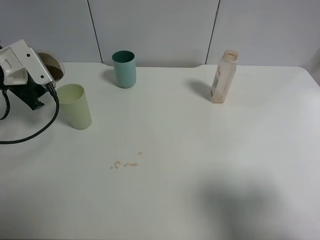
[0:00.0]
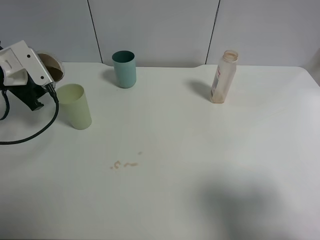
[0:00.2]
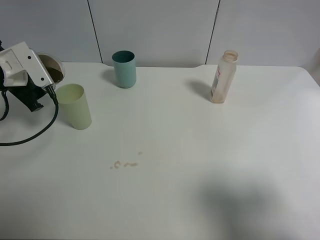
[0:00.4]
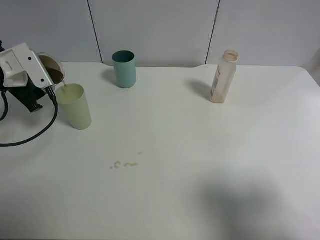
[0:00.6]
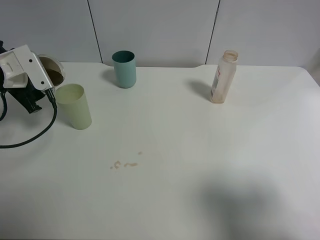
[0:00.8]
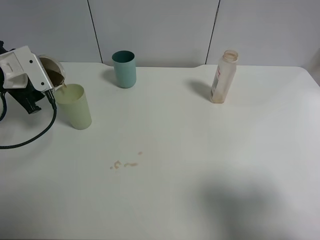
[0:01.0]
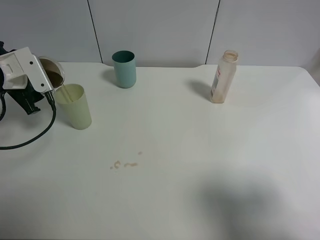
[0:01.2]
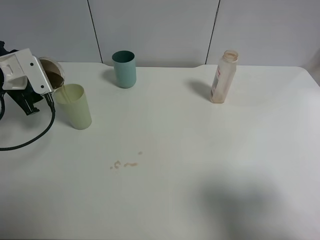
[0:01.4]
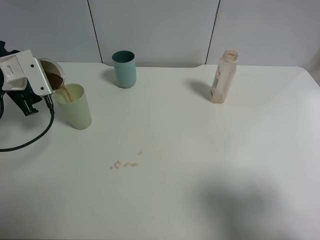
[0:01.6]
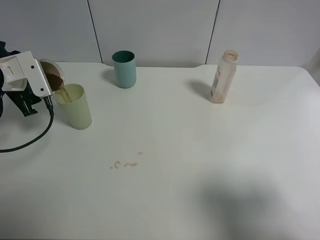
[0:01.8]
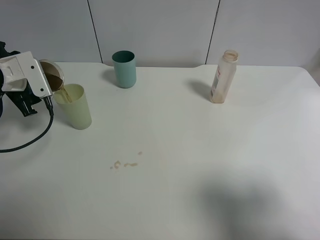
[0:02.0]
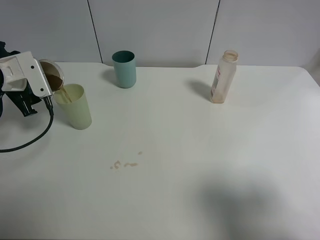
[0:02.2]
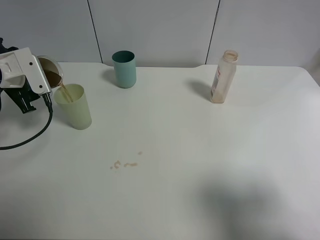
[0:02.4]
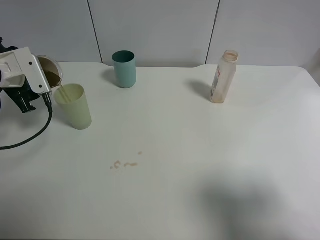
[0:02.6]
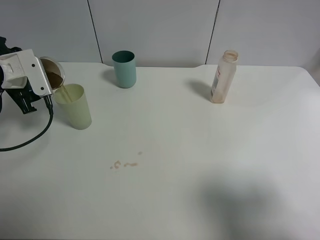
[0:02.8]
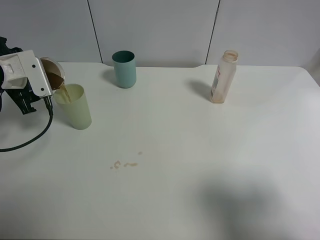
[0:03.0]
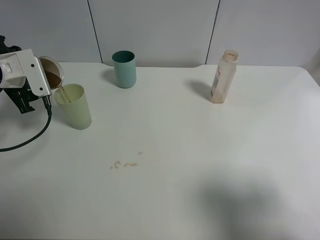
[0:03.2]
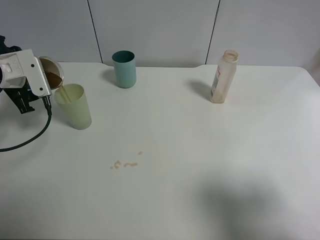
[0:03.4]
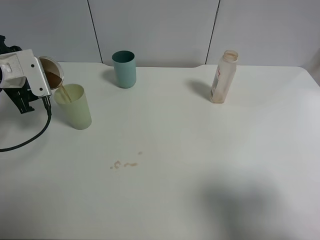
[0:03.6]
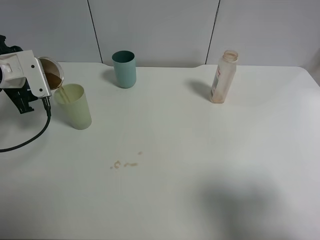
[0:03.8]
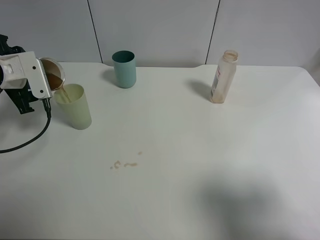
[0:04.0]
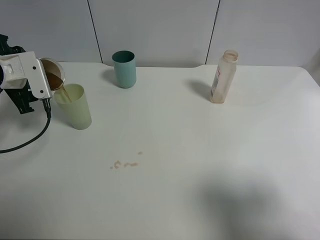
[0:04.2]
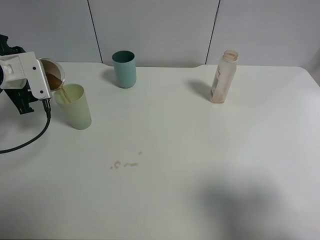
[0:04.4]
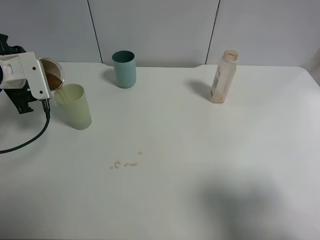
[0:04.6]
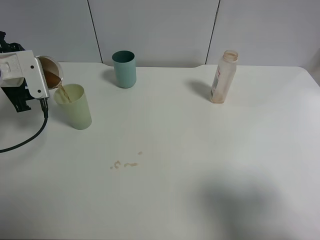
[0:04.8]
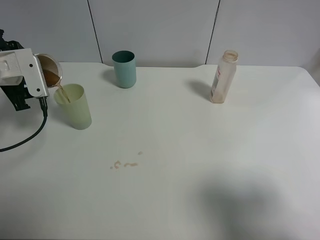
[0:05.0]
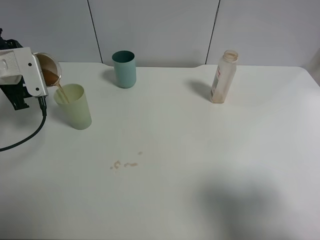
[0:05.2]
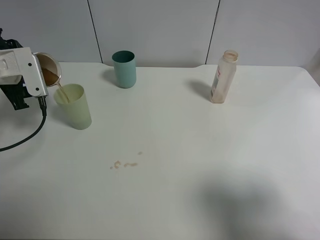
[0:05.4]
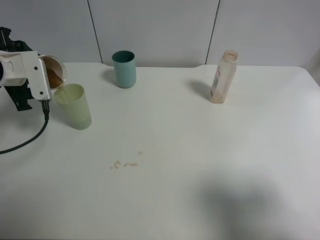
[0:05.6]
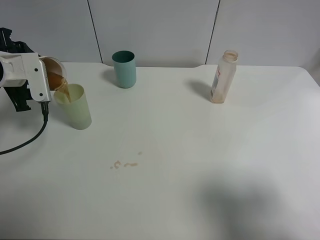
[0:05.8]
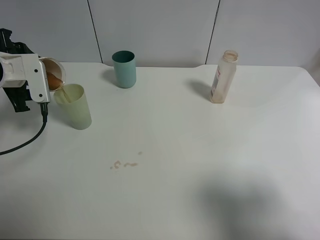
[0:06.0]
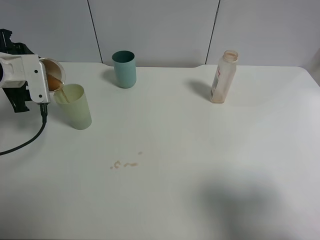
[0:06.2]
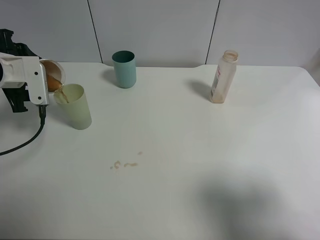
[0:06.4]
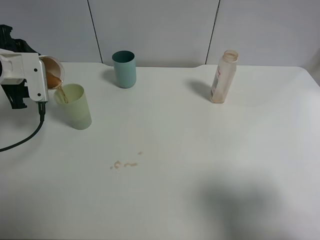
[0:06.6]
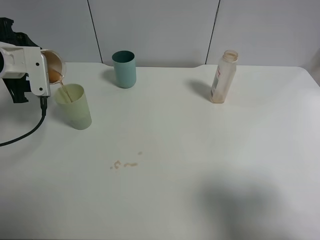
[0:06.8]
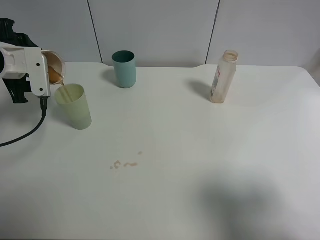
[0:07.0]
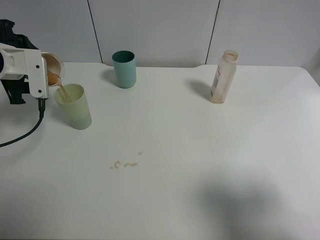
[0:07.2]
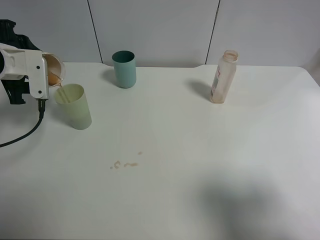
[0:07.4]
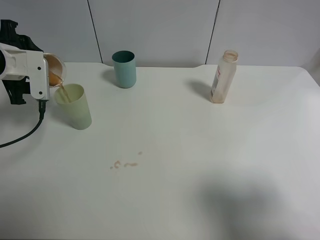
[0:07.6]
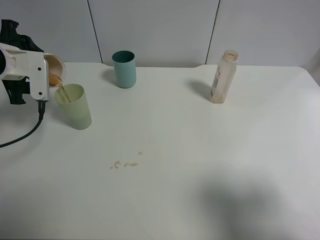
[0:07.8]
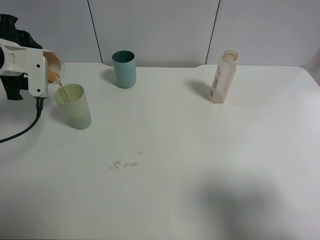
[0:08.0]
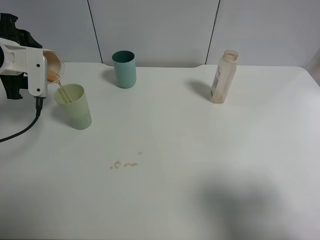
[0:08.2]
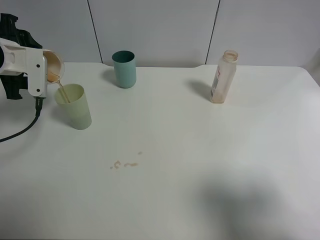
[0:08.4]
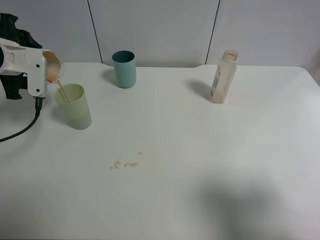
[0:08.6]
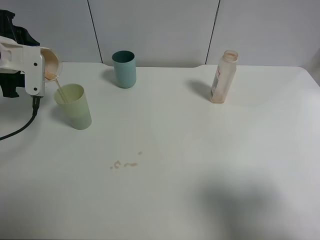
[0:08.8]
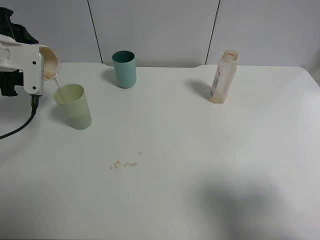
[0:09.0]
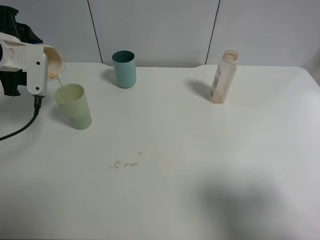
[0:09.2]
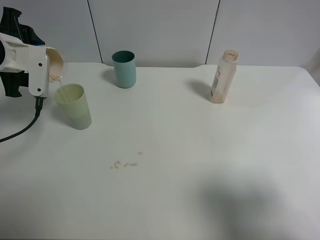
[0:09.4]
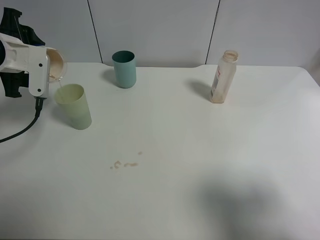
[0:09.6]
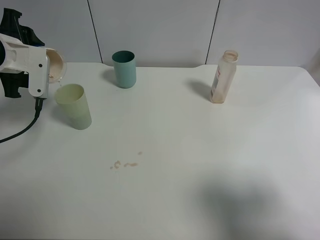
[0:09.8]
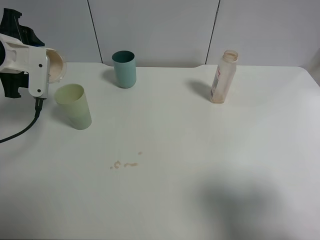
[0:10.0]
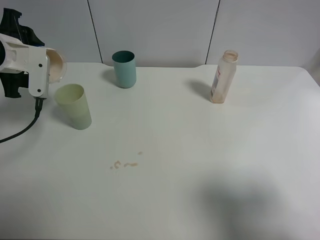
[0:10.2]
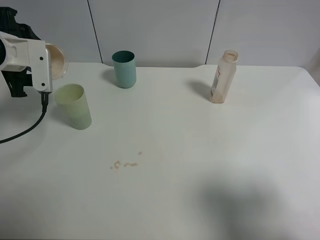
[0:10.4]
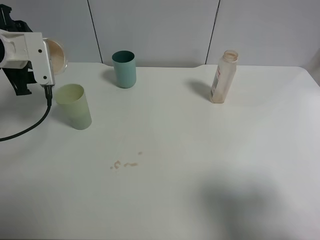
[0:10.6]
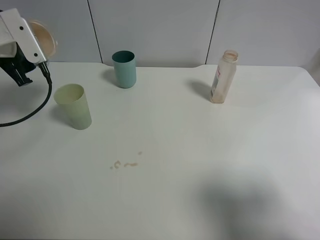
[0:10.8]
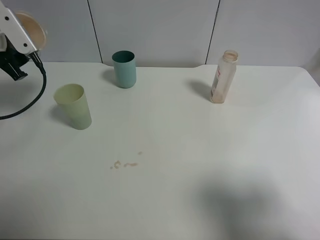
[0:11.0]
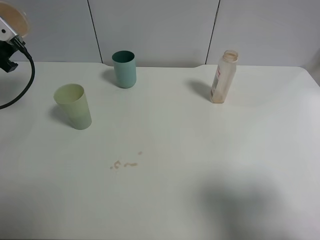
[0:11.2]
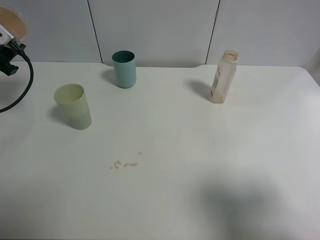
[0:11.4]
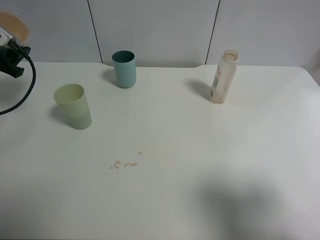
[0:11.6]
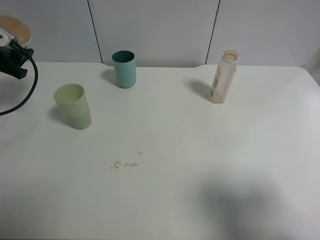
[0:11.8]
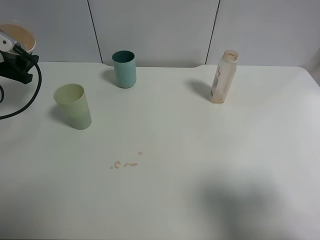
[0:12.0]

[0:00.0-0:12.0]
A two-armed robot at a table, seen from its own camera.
Task of the whole recording: use a clamp to hold the bottle of the drink, pour the beverage into a random cup, then clamp the cup containing the drink and pour the drink into another random cup.
Step, 0:00.0 to 0:10.6: Pour the drink into the green plastic cup with left gripper.
0:00.0 to 0:01.6: The grippers move only a little.
0:01.6 to 0:03.0: Both grippers stay about where they are.
0:03.0 to 0:04.4: Neither gripper changes place.
0:04.4 to 0:07.6: The grippers move only a little.
0:07.6 to 0:10.4: The grippers move only a little.
0:10.4 to 0:12.0: The left gripper shifts approximately 10 cm to the left.

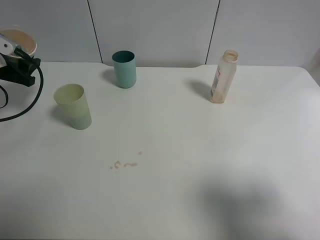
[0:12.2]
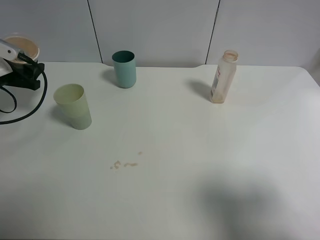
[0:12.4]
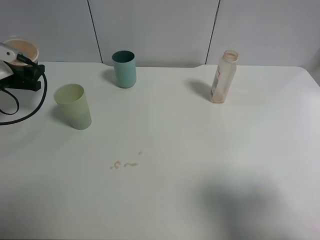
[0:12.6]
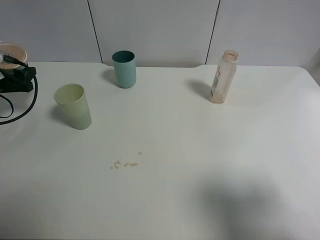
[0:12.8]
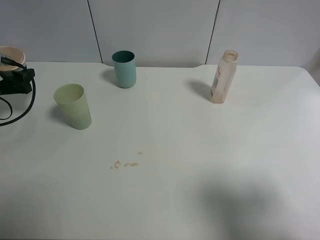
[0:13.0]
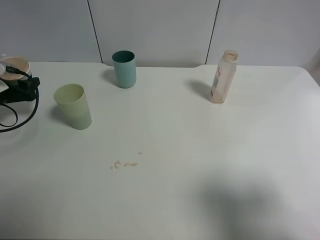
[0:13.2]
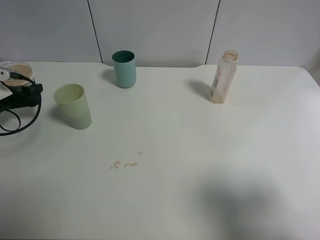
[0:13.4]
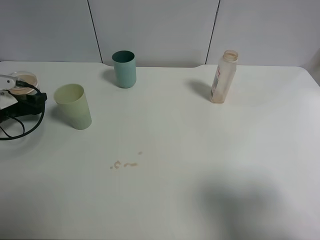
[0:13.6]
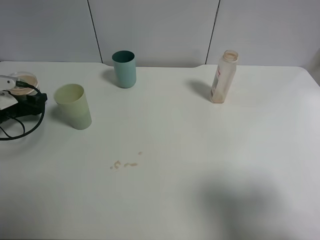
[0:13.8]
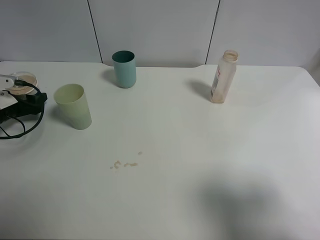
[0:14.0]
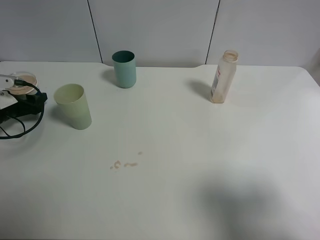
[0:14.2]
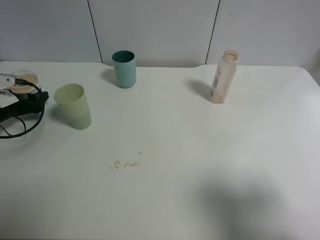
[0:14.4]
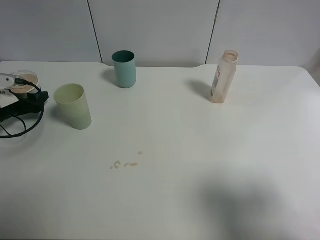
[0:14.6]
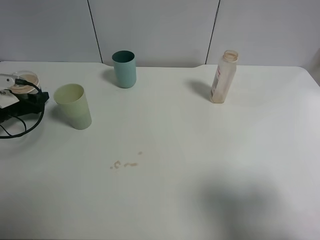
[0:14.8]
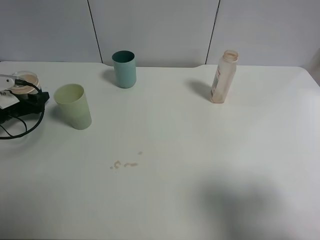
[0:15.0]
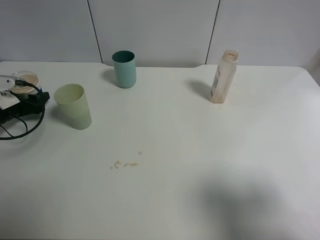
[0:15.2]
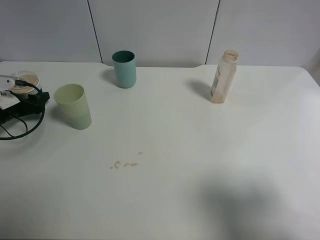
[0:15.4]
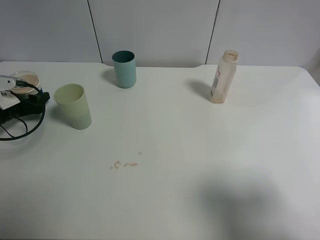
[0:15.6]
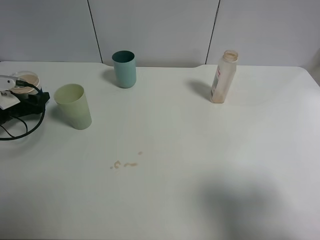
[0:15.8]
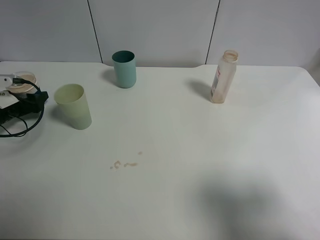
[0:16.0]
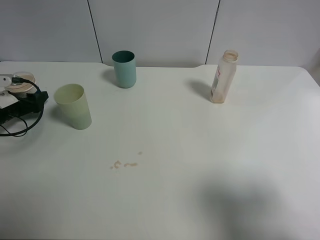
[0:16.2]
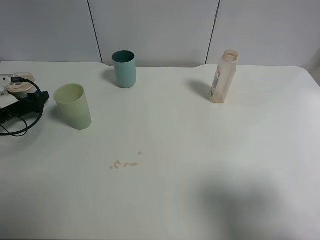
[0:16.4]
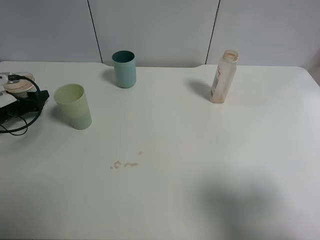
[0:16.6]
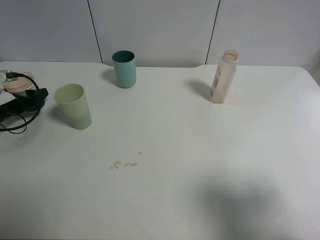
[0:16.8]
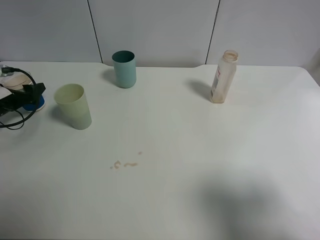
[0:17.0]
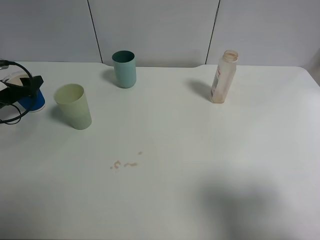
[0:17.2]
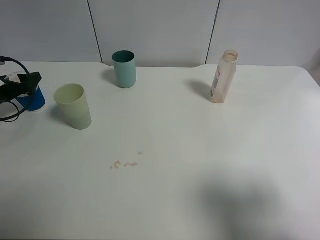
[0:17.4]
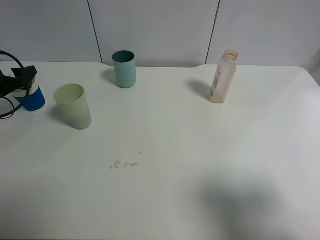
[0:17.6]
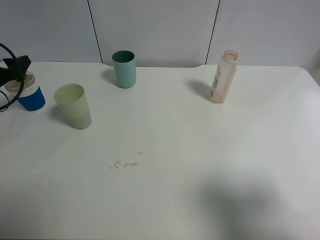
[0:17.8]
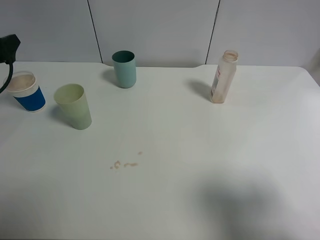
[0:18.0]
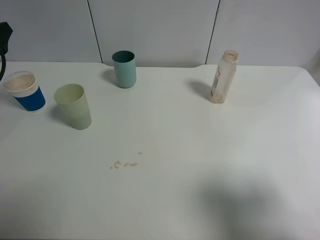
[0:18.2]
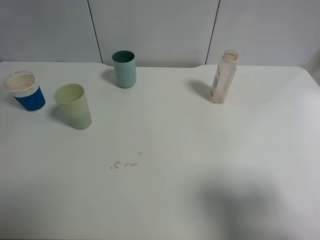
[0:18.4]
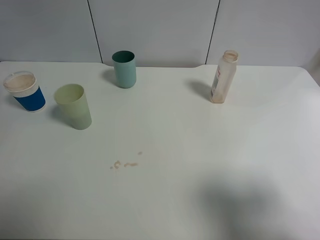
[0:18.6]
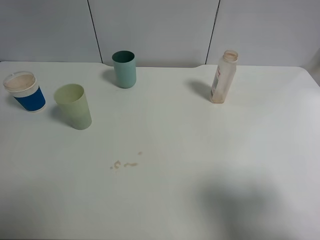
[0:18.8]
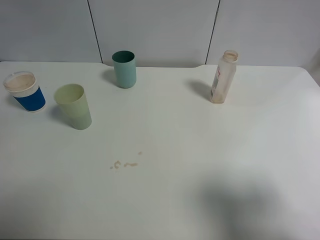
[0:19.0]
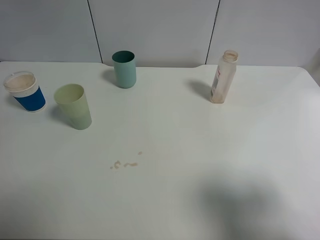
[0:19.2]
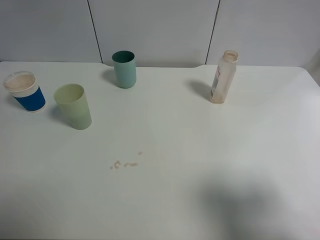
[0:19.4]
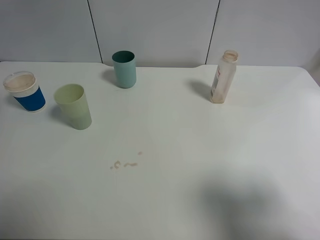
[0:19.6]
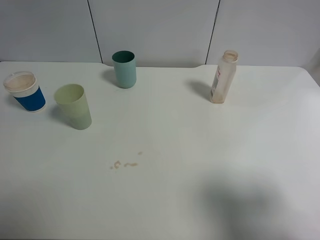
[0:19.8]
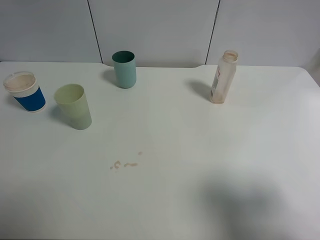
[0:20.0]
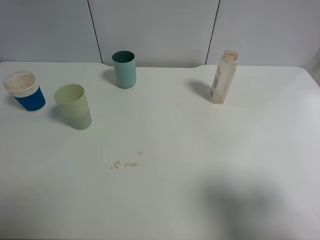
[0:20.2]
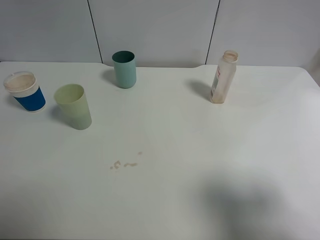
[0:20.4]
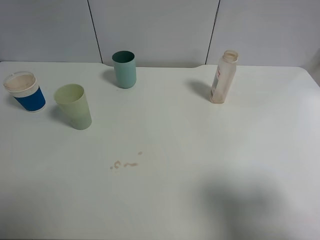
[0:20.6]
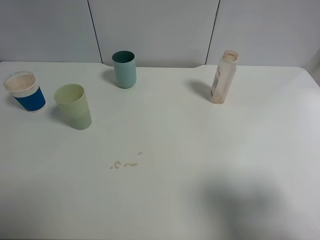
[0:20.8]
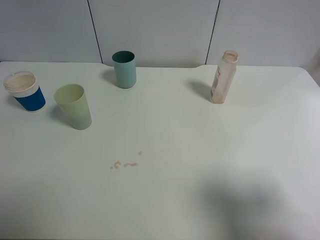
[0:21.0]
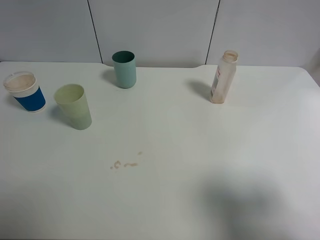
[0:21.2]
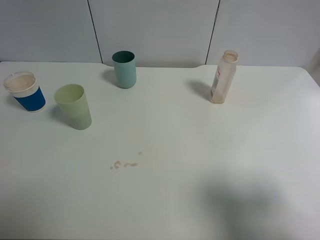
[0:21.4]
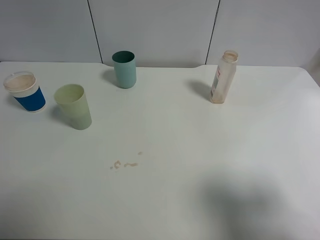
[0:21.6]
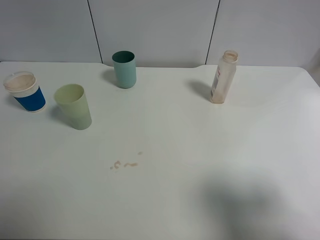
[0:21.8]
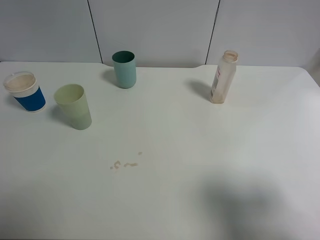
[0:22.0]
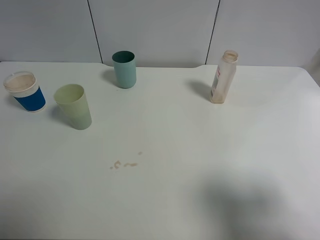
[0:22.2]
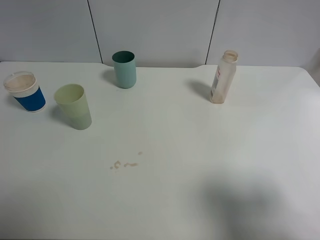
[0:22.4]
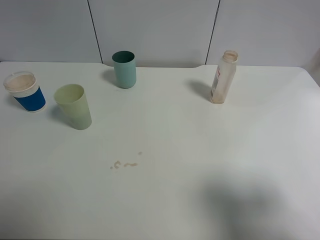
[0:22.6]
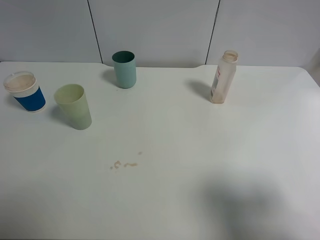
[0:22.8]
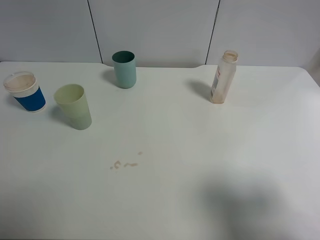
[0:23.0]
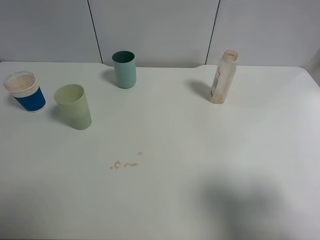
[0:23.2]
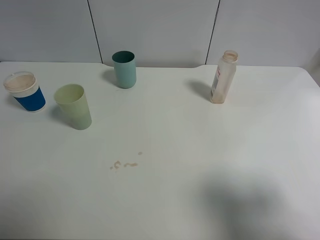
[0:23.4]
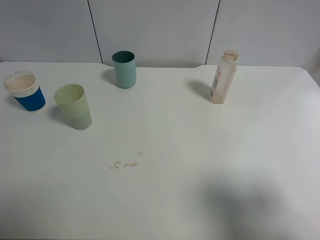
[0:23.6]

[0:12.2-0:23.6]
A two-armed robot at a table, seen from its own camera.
Task of the whole recording: use a clamp to hold the bottle of the drink, pour the beverage into a random cup, then clamp the cup containing the drink and pour the drink into another random cup.
Step, 0:12.2 to 0:17.4: Place the paper cup on the table with left gripper.
0:12.2 to 0:13.6: The left gripper travels downward by roughly 10 cm.
0:13.6 to 0:15.0: Neither gripper changes place.
0:15.0 to 0:16.4: The grippers make only small movements.
0:16.4 to 0:17.8: The left gripper goes some 10 cm upward, and opens its fingers.
0:17.8 to 0:19.4: The left gripper is displaced upward, backward and to the right by approximately 20 cm.
